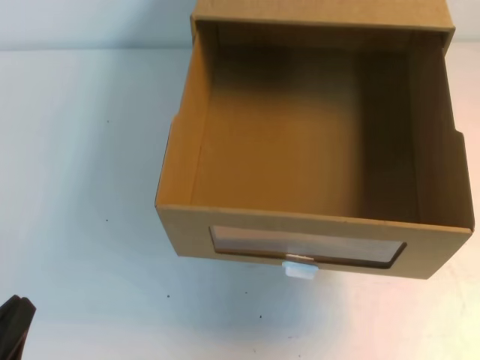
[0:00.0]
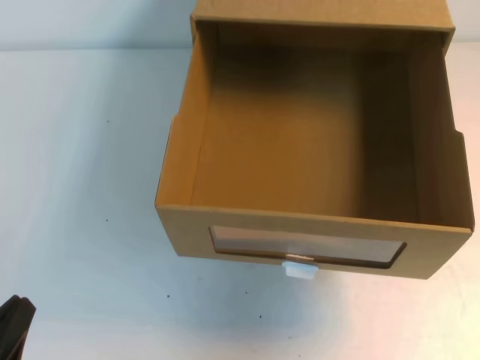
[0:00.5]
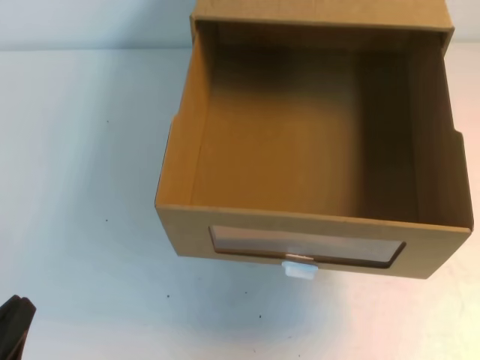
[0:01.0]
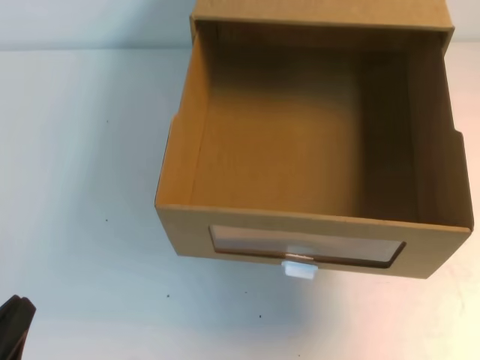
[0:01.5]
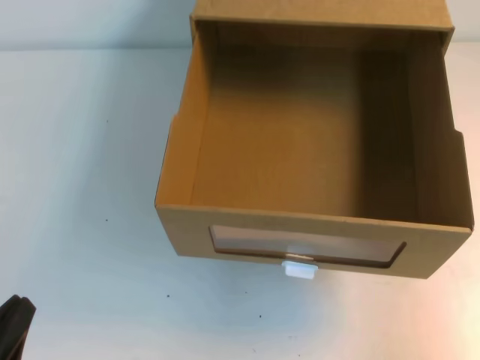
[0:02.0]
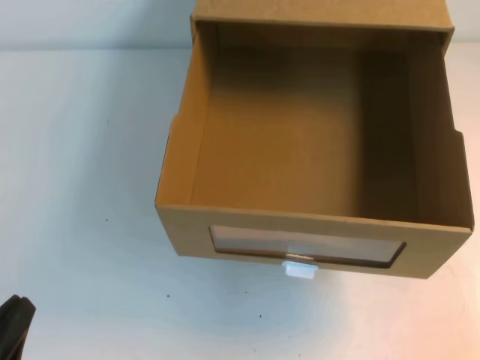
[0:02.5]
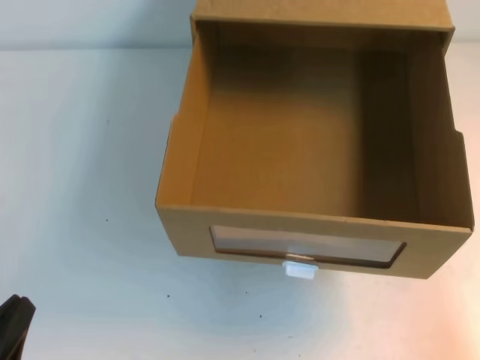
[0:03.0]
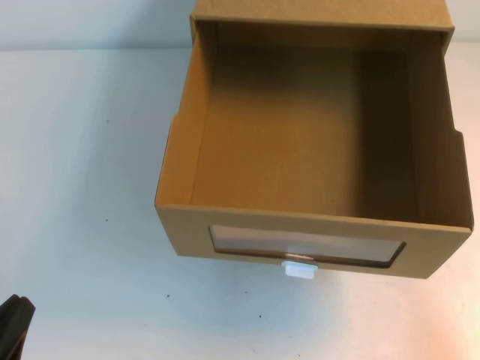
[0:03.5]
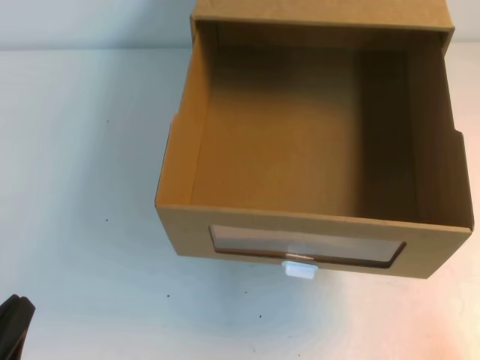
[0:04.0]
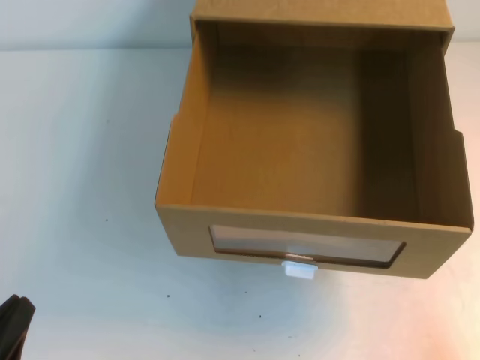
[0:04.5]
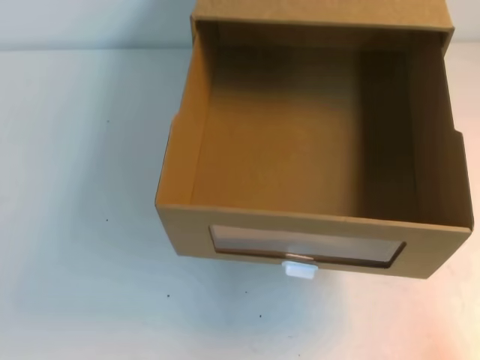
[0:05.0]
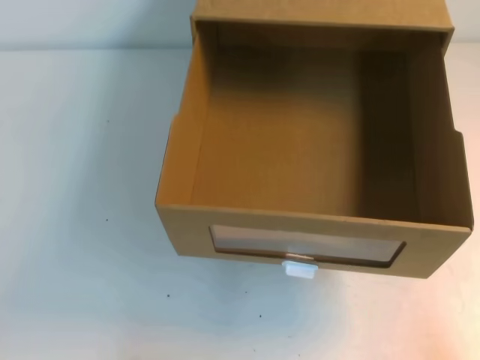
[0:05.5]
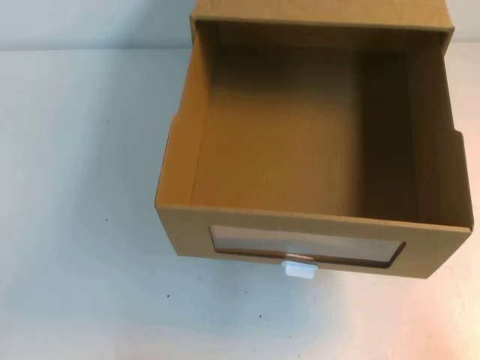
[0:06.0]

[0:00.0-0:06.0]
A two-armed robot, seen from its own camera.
Task of the whole recording: open the shoebox on the table.
Step, 0:00.0 to 0:06.0: Open the shoe box.
0:00.0 to 0:02.0: The right gripper heads downward, covering roughly 15 cm.

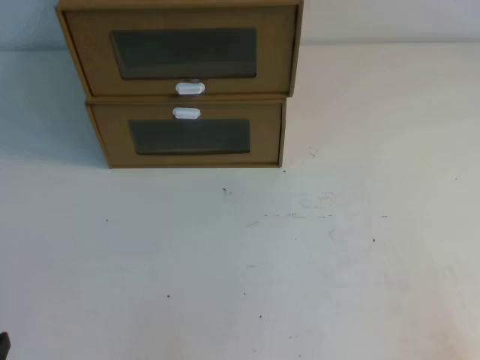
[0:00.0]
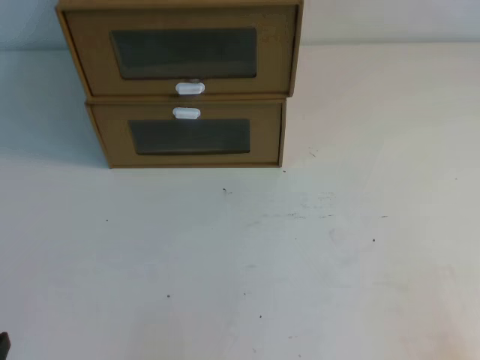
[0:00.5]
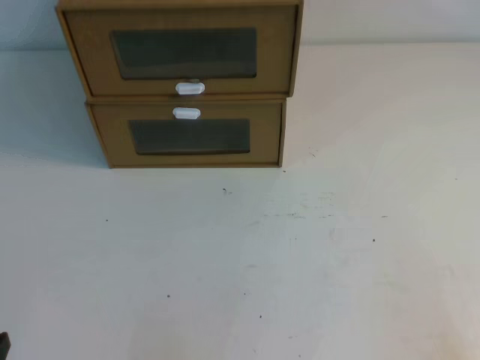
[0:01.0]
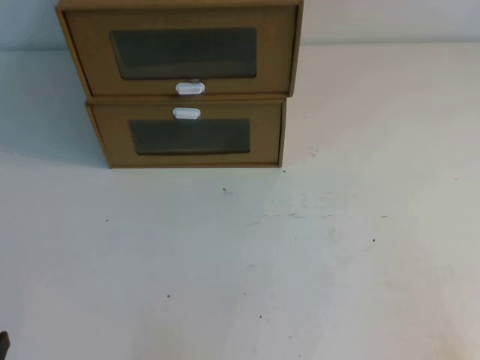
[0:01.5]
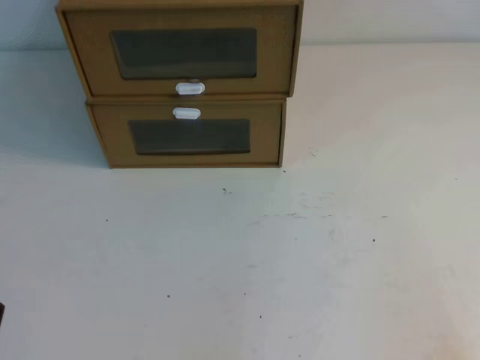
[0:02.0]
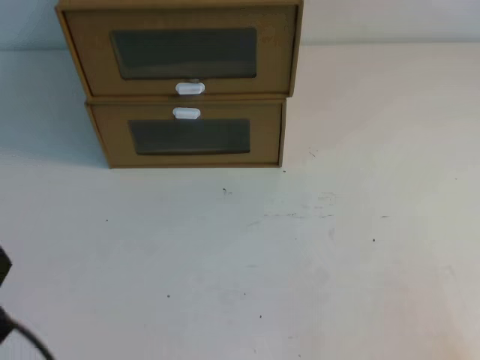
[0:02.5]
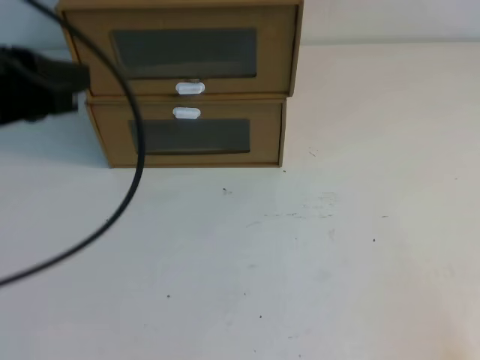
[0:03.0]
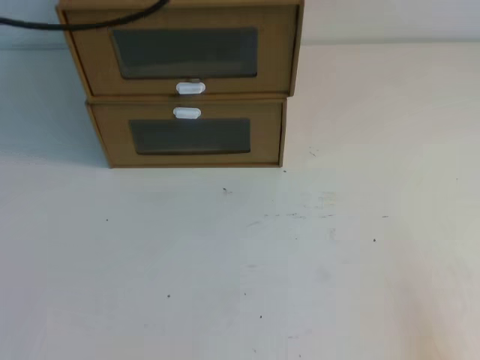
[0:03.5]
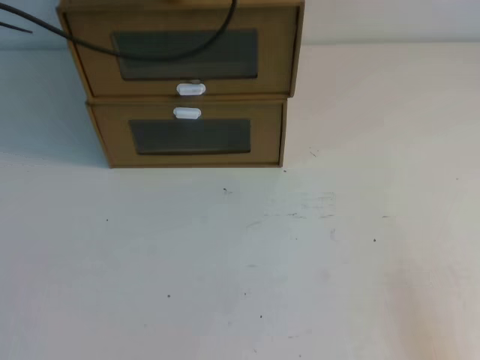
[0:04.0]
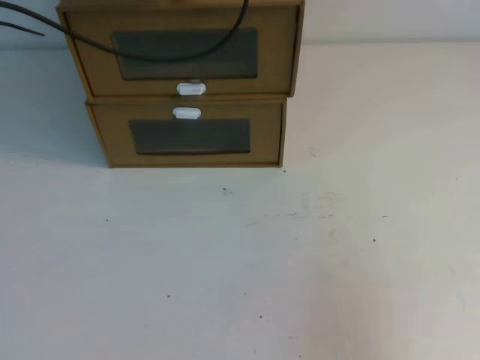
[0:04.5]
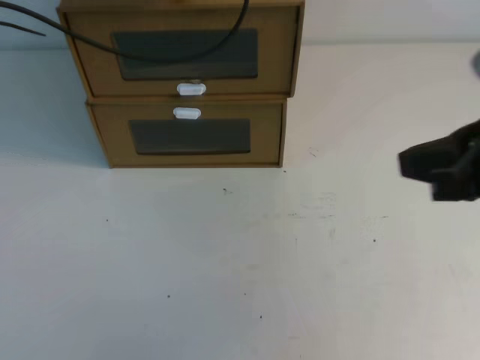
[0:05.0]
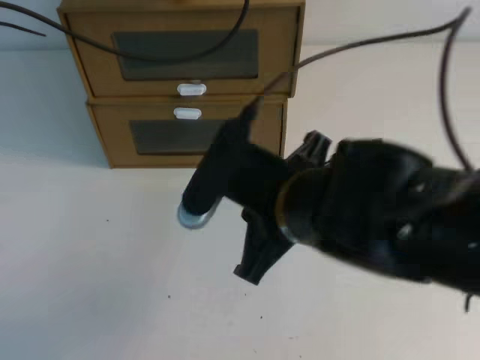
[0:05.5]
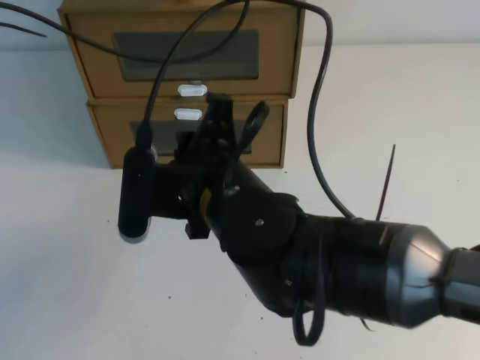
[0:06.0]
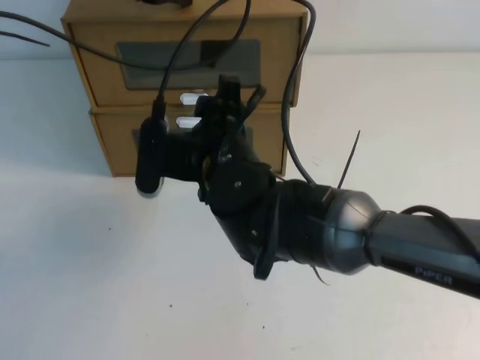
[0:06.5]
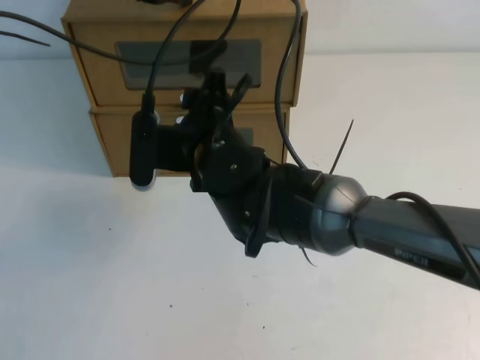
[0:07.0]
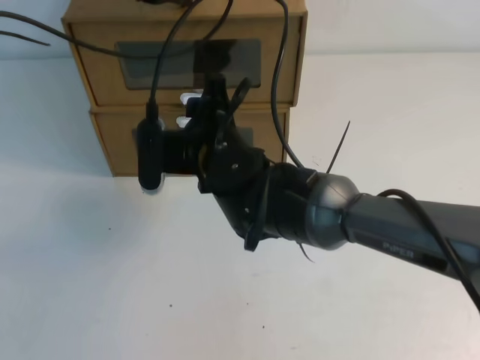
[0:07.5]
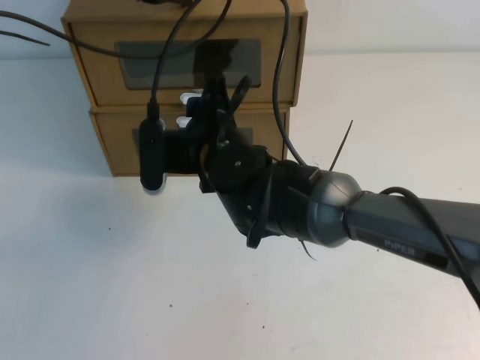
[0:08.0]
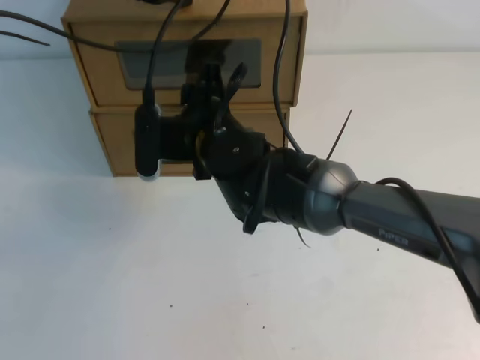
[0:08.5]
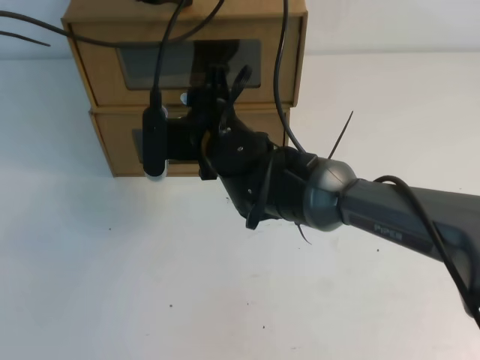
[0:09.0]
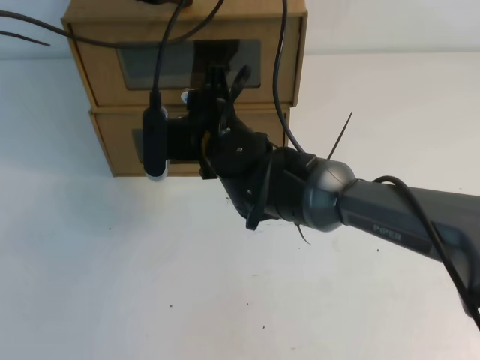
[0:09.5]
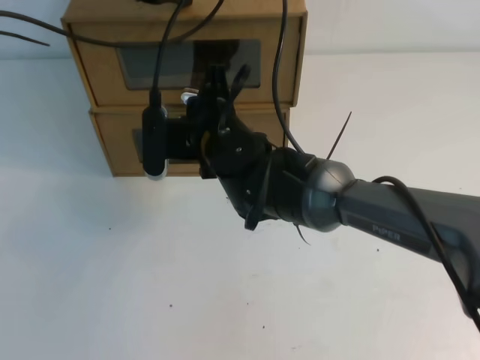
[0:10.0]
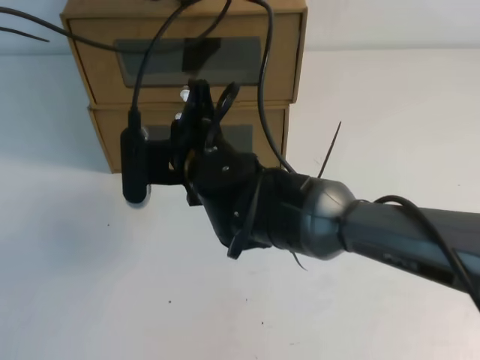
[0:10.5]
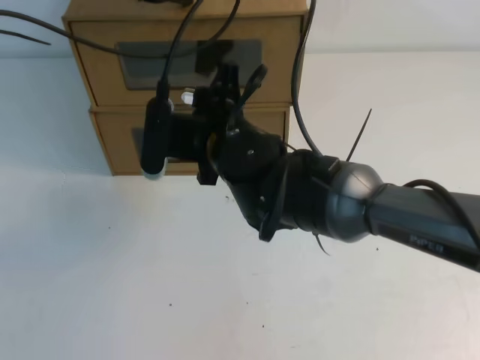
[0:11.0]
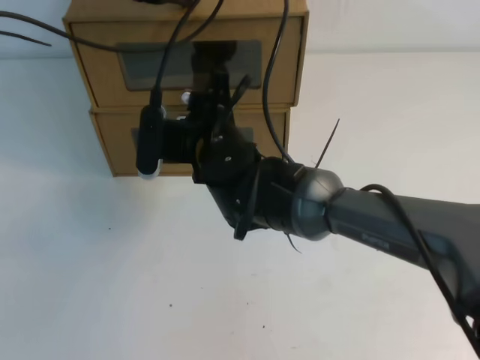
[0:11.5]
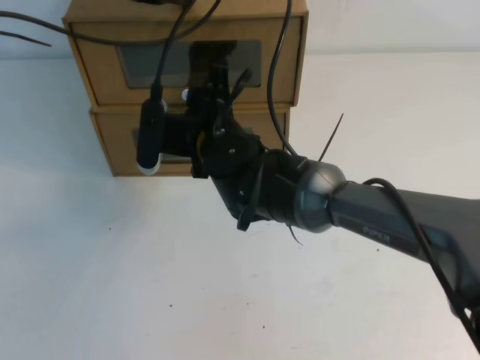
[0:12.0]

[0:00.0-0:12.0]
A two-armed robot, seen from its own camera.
Task of the whole recording: open the shoebox on the table.
0:02.0 to 0:04.0: The left gripper is displaced forward and upward by approximately 40 cm.
0:04.0 to 0:06.0: The right gripper shifts approximately 35 cm to the left and forward, and opens up.
0:06.0 to 0:08.0: The right gripper travels forward by some 10 cm, and opens up.
0:08.0 to 0:10.0: The right gripper closes up.
0:10.0 to 0:12.0: The right gripper opens its fingers.

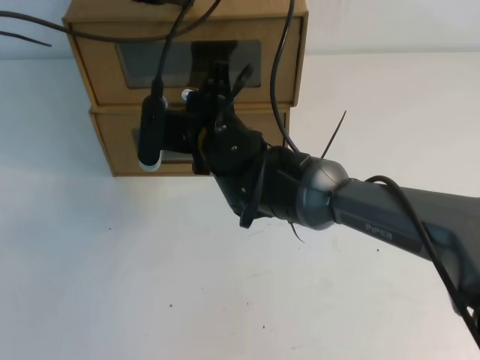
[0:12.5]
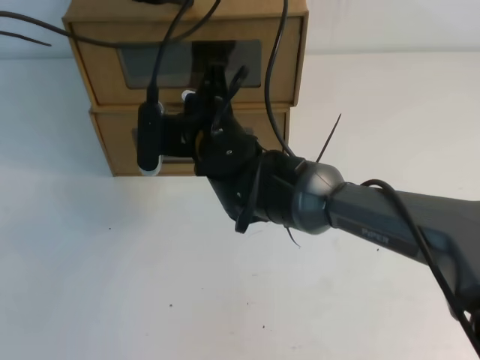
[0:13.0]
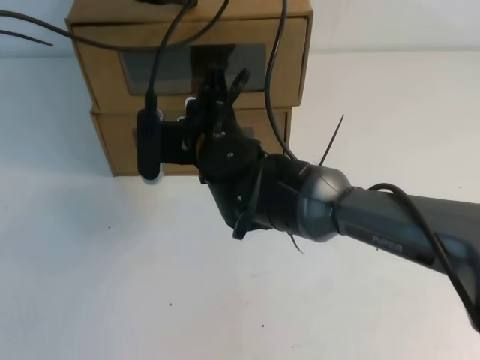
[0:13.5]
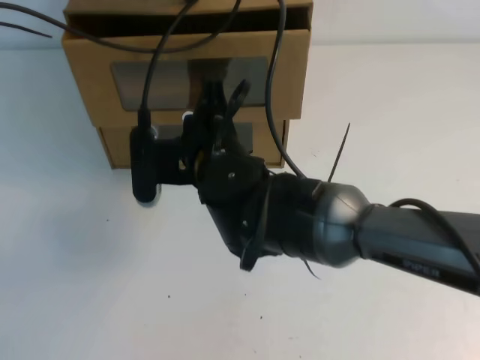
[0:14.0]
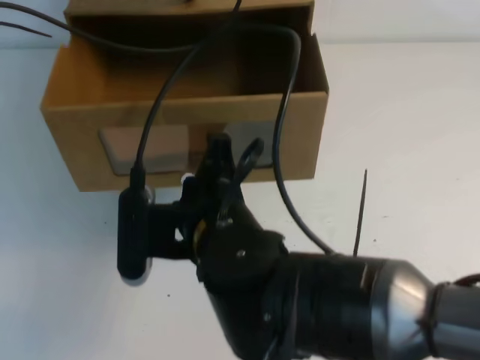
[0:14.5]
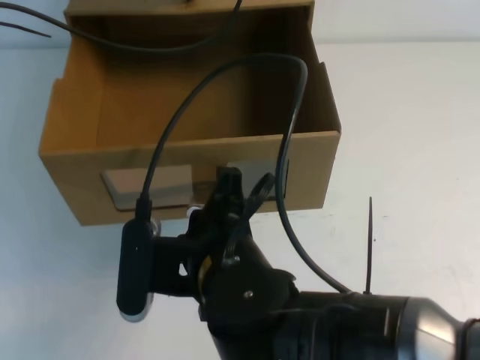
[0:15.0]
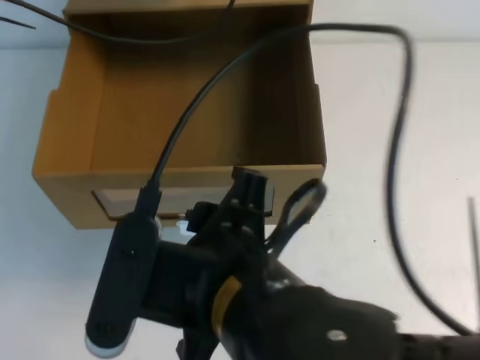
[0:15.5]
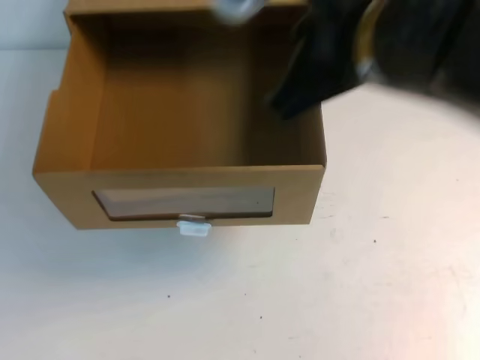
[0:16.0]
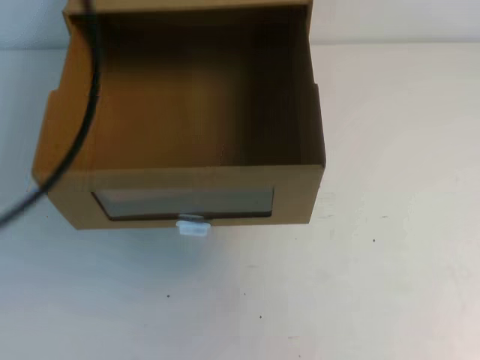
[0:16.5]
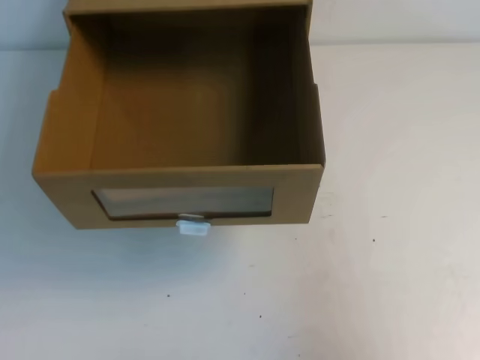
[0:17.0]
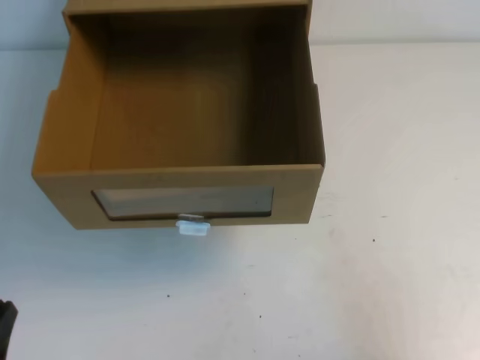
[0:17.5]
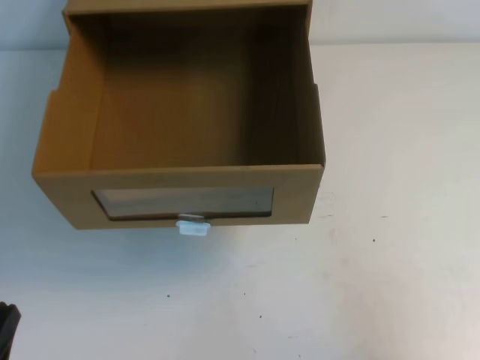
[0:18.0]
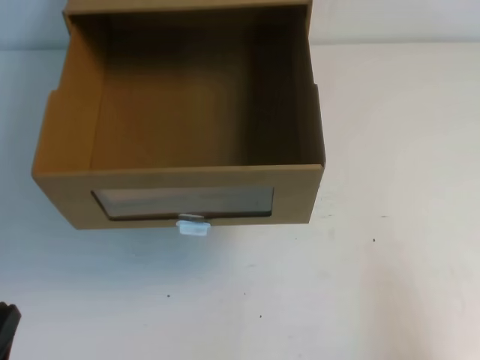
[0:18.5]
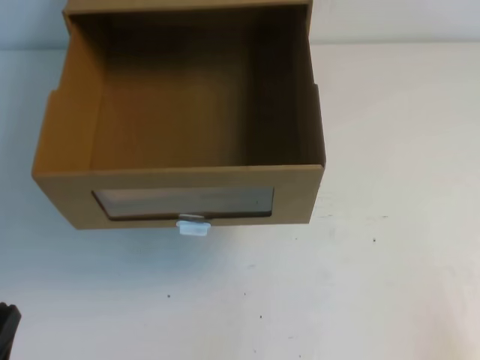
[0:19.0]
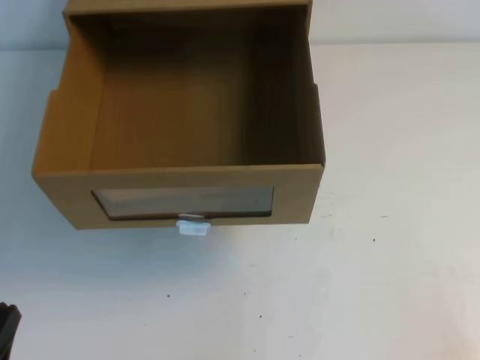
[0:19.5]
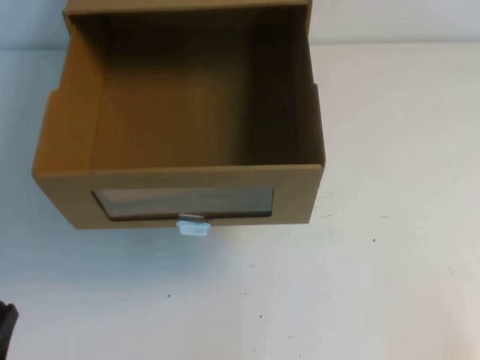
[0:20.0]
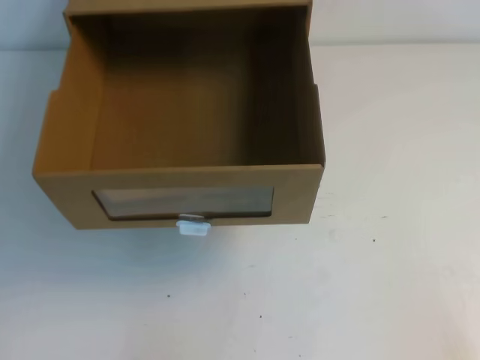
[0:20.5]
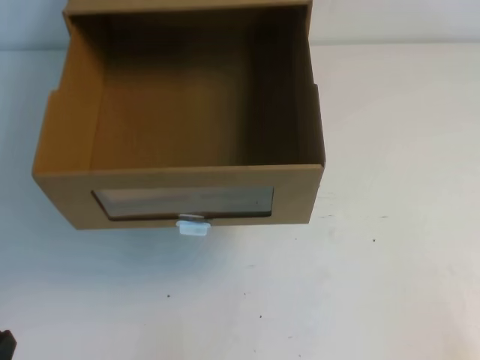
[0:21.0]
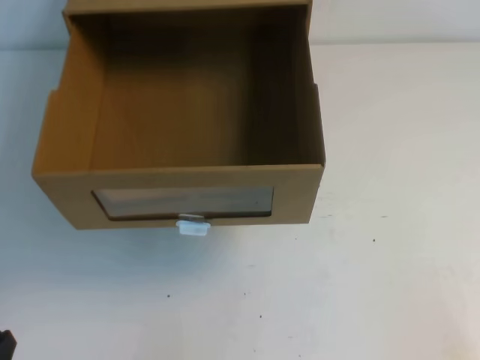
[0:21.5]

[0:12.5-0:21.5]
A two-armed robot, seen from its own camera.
Task of the whole recording: open the shoebox on the table.
Step, 0:12.5 to 0:21.5: Open the shoe box.
0:12.5 to 0:14.5: The right gripper heads backward, covering approximately 15 cm.
0:14.5 to 0:17.0: The left gripper moves backward, about 40 cm. The right gripper is displaced to the right by about 30 cm, and opens, then closes once more.
0:17.0 to 0:19.5: The right gripper shifts approximately 20 cm downward and backward. Meanwhile the left gripper heads downward, covering about 15 cm.
